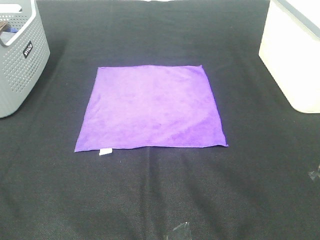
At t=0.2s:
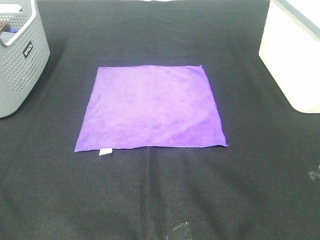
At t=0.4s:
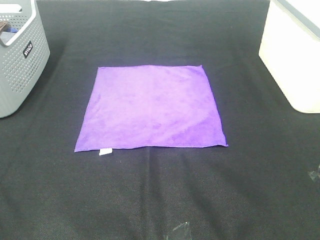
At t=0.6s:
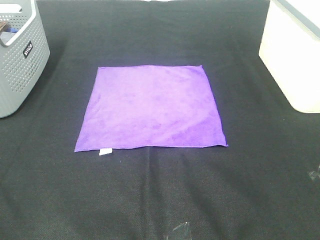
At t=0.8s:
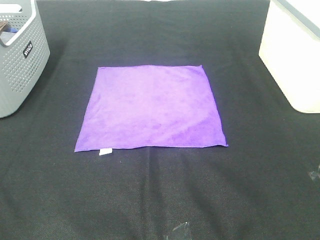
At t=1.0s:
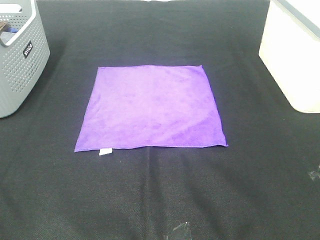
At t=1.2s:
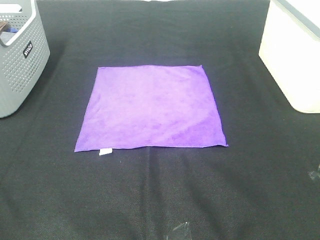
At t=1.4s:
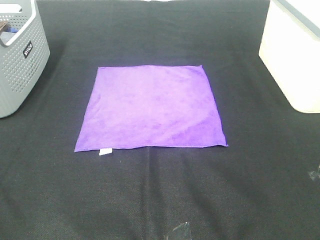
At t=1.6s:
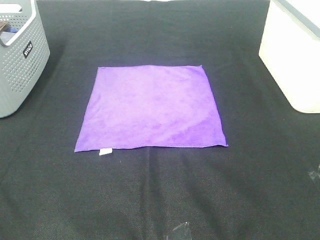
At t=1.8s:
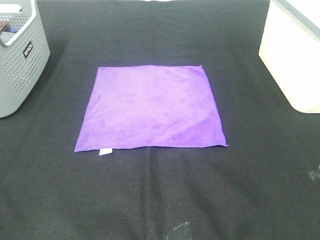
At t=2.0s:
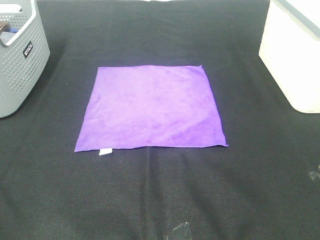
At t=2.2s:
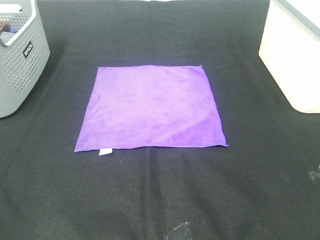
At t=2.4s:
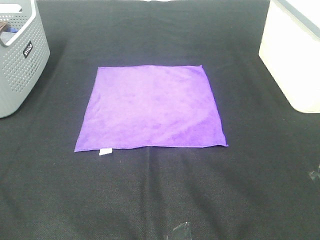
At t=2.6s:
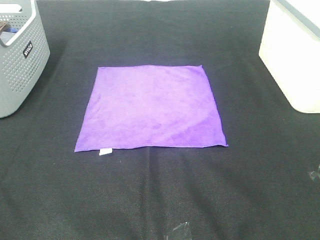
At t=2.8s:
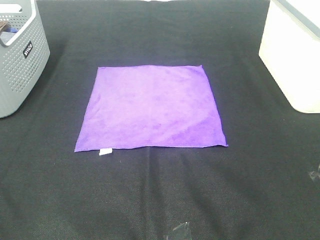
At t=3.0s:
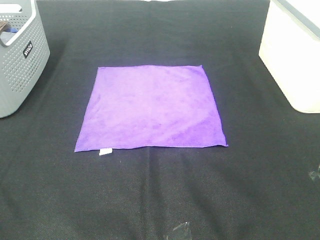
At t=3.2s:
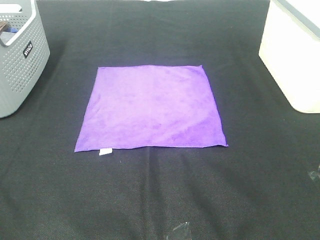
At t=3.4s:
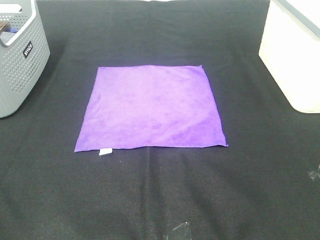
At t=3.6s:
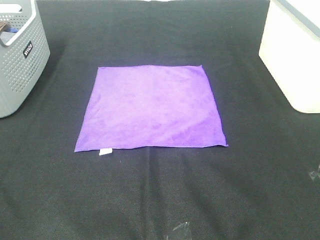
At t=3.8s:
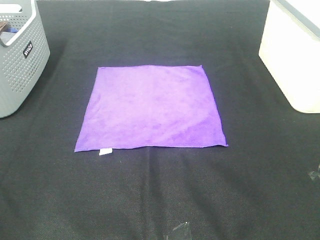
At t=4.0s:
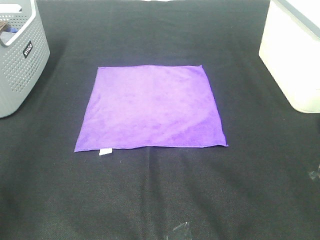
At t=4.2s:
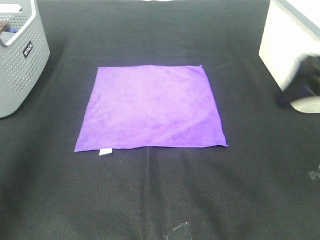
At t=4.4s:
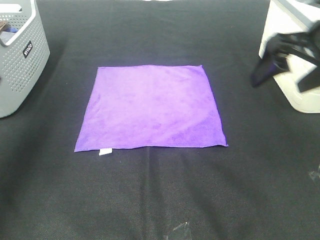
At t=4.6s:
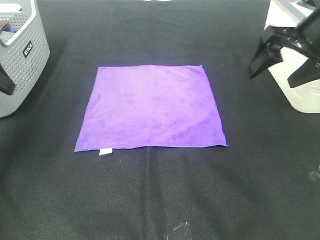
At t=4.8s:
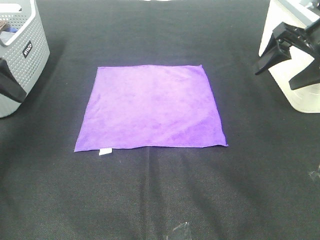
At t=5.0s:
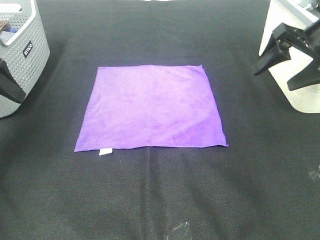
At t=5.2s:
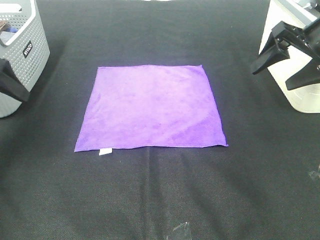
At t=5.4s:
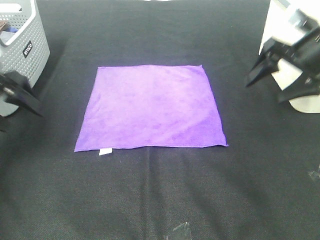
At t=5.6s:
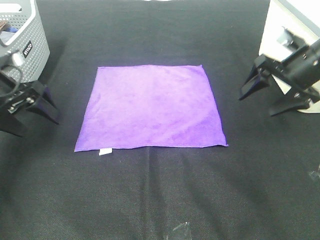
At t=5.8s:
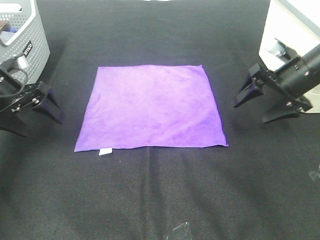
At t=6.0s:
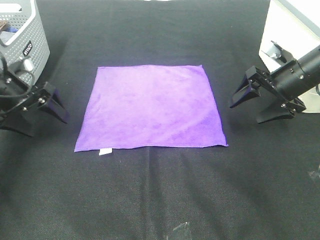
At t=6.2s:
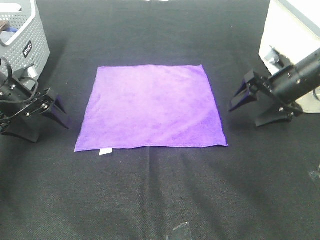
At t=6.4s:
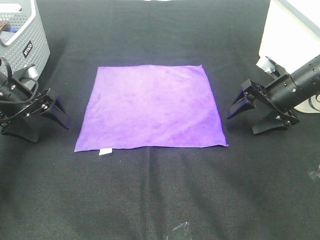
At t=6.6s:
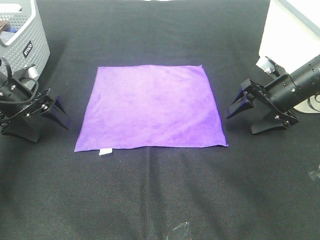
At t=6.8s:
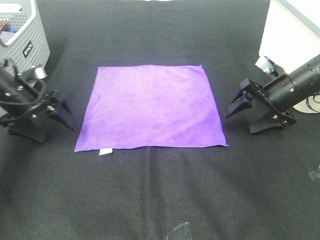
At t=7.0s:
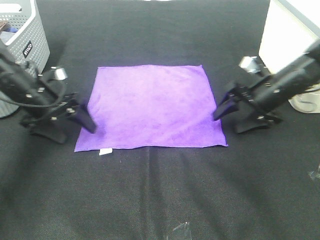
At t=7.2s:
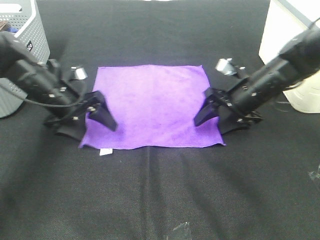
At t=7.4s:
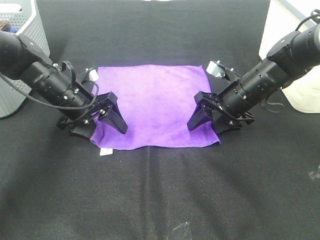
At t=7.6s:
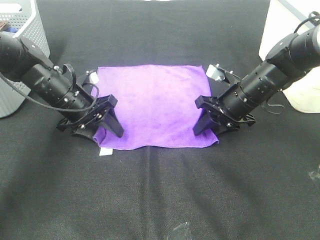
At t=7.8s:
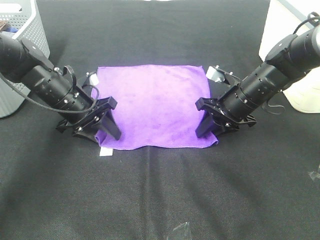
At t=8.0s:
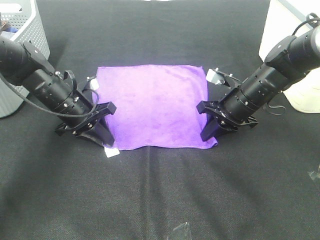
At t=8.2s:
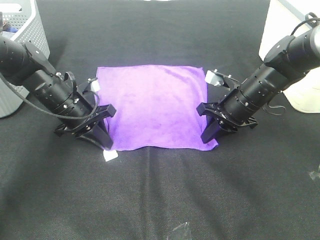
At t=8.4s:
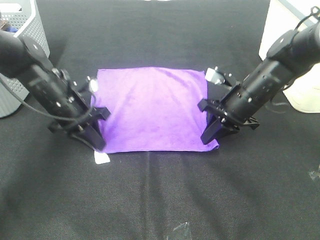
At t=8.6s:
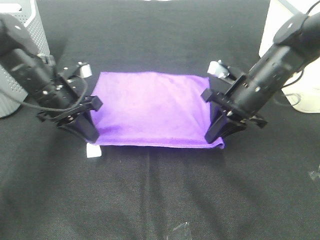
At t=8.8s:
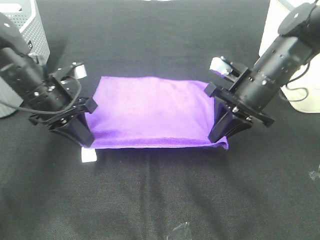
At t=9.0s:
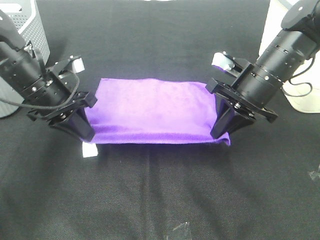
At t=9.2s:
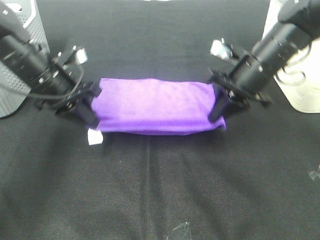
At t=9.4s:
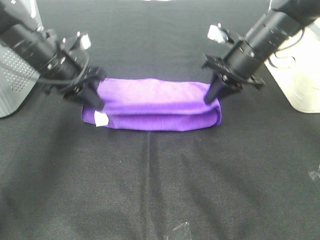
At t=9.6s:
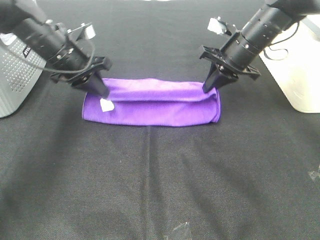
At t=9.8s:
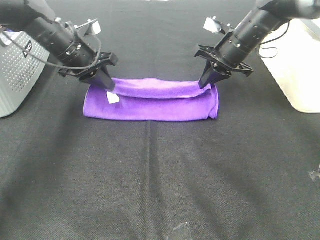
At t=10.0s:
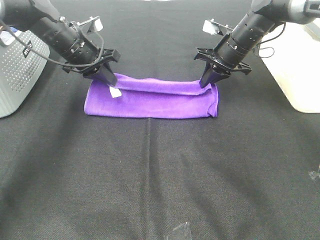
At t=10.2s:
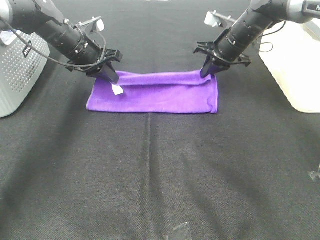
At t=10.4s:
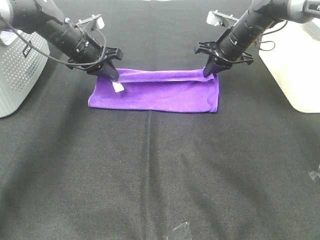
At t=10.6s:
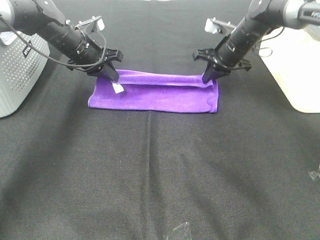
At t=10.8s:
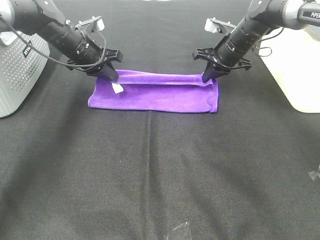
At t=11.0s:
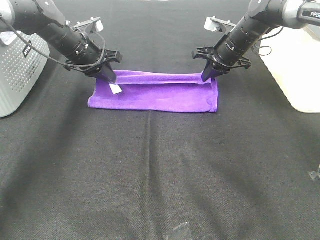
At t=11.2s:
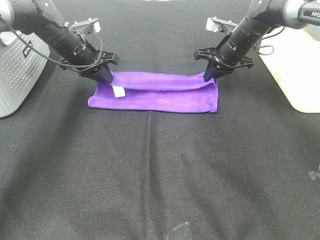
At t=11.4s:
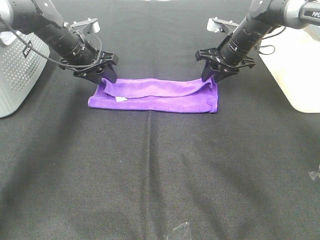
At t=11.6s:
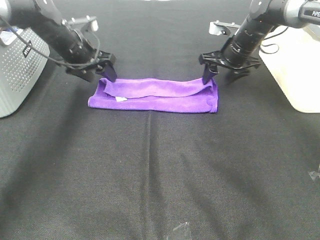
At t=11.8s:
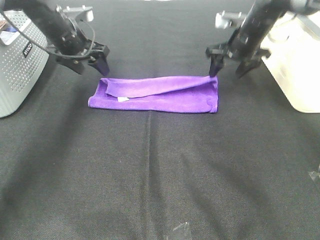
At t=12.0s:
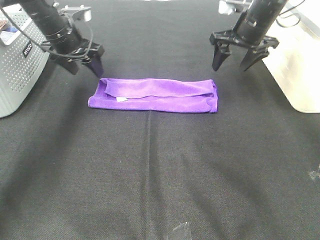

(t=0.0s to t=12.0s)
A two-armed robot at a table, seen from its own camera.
Task of the whole recording: Fold towels.
Step, t=0.0s - t=8.0s: Left hand: grab the bottom left corner of purple towel.
Step, t=0.0s - t=8.0s: Right hand: grab the bottom right corner of purple towel.
Step, t=8.2s - t=11.2s: Left hand: fold the purple towel up.
Step, t=8.2s - t=11.2s: Right hand: fold the purple towel up.
t=0.0s - t=3.0s: Neither gripper changes place.
t=3.0s - t=4.4s: The two grippers go approximately 30 cm forward.
t=4.4s - t=6.0s: The grippers both shift downward and forward by roughly 20 cm.
t=6.0s - t=7.6s: The left gripper shifts some 10 cm to the right, and closes. Meanwhile the right gripper goes some 10 cm to the left, and closes its fingers.
t=7.6s - t=9.0s: The two grippers go some 5 cm upward. The right gripper closes its fingers; the left gripper closes its fingers.
t=9.0s - t=10.4s: The two grippers go approximately 15 cm forward.
t=10.4s - t=12.0s: The right gripper shifts about 5 cm upward, and opens its fingers. Meanwhile the left gripper opens up.

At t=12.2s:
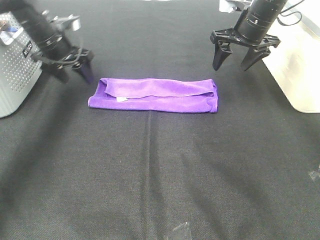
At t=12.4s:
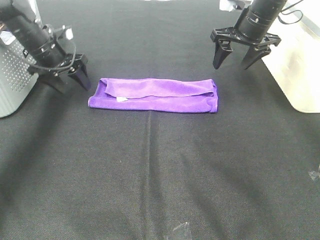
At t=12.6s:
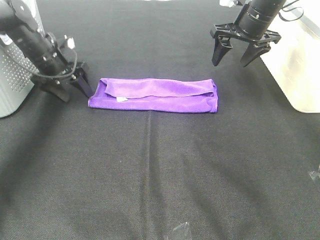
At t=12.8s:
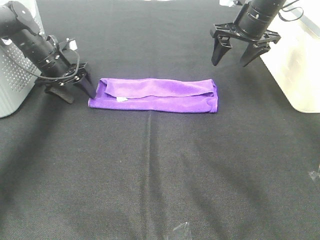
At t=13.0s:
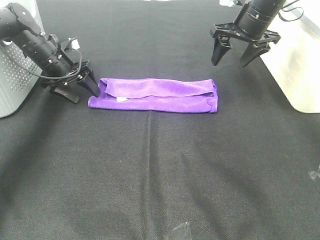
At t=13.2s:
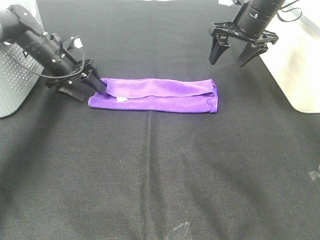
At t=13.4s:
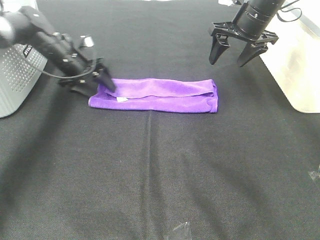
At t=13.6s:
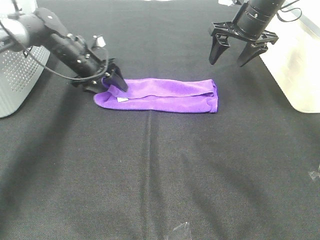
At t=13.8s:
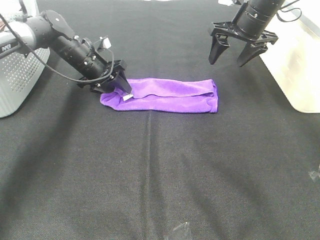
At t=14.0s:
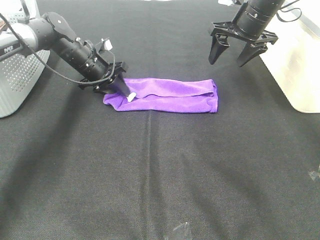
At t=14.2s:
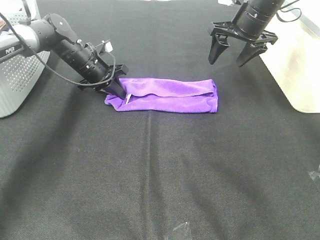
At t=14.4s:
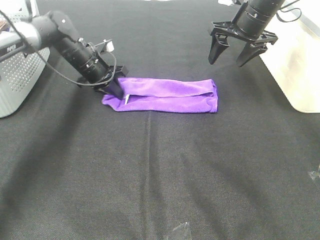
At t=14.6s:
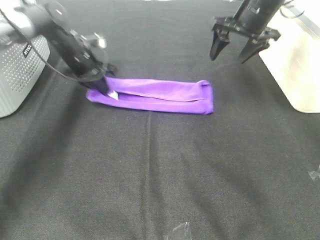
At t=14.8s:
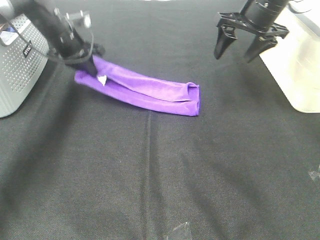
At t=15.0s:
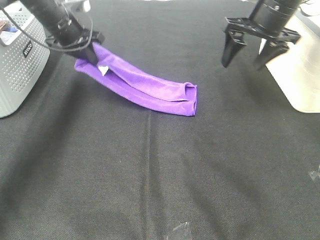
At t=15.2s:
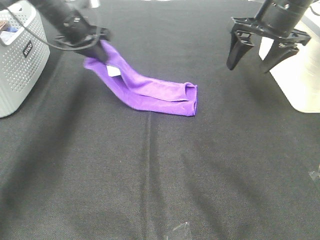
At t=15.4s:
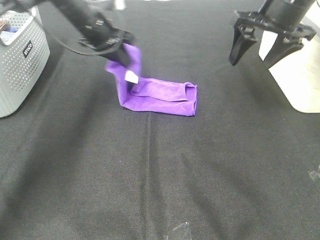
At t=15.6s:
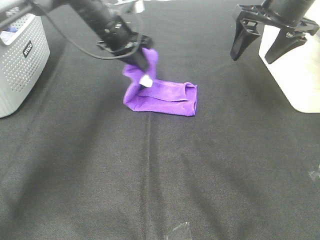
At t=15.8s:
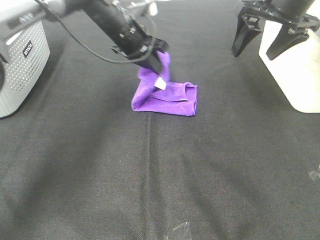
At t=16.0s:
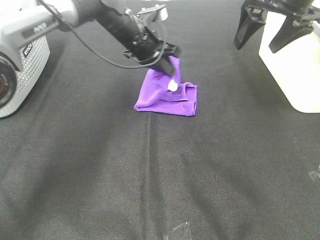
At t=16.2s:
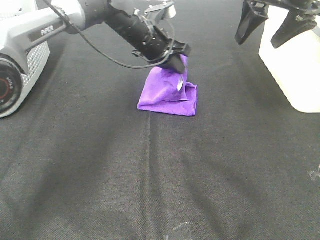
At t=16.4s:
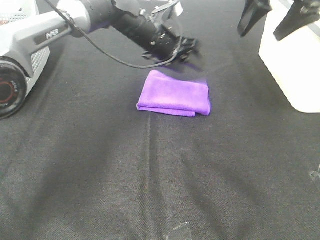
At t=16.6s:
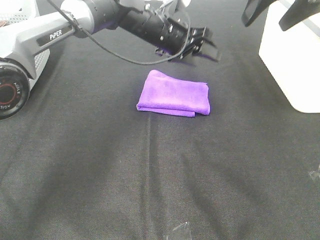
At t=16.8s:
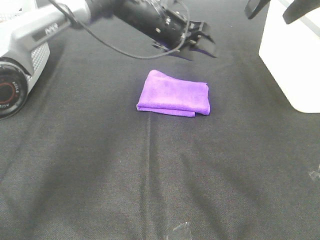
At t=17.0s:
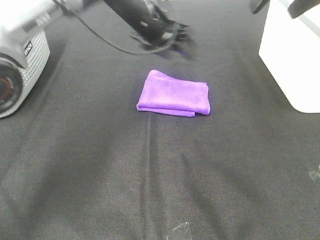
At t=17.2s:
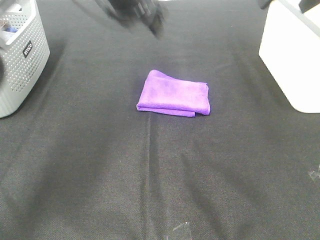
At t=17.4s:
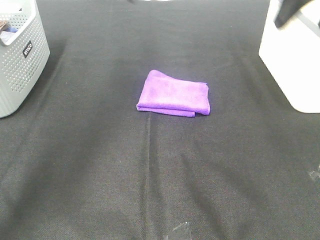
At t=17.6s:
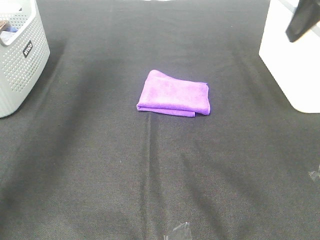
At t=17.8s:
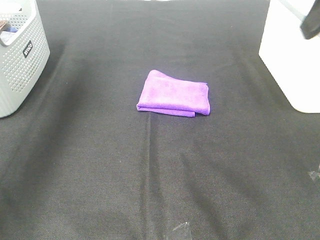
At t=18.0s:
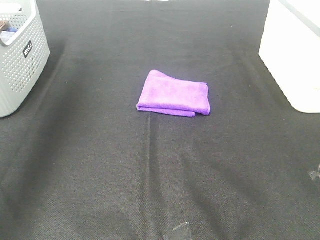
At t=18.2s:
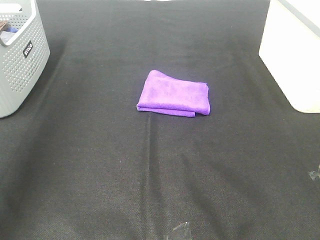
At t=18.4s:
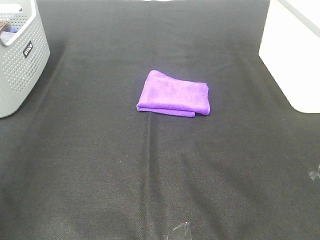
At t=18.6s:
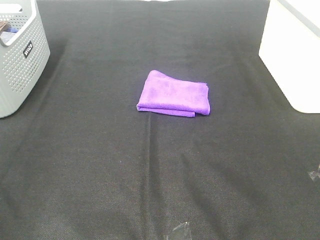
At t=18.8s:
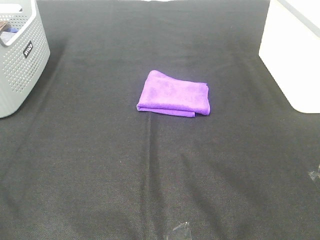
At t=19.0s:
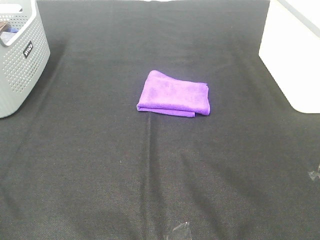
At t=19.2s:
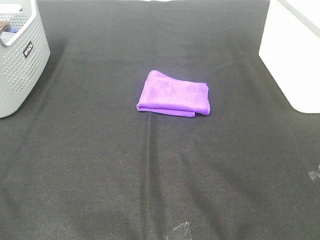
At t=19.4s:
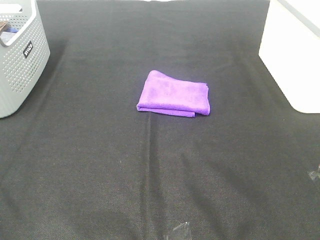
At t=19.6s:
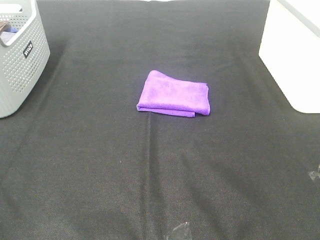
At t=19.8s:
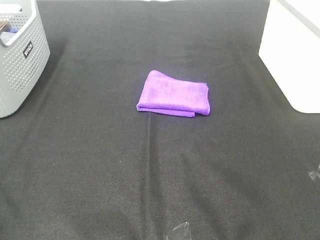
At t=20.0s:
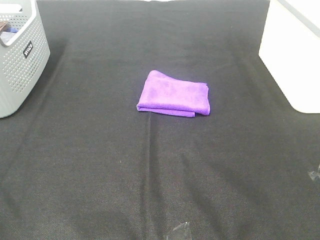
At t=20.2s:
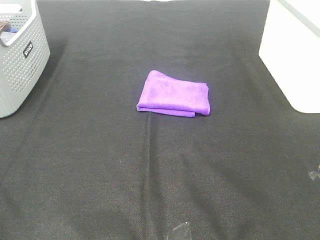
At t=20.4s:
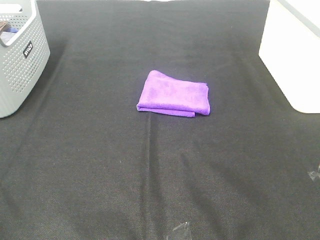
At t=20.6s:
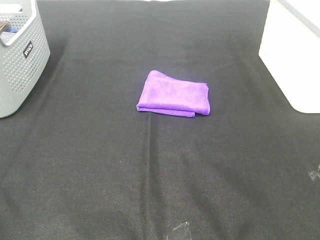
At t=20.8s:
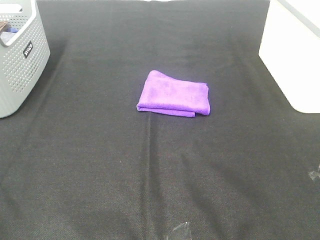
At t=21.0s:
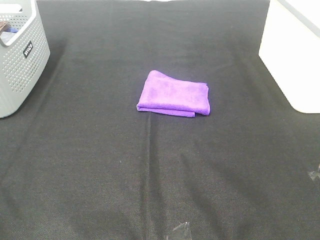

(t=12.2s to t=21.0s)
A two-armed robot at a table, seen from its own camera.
Task of the whole recording: Fold towels.
Step, t=12.2s - t=16.2s: Left hand: fold the purple towel from left to right.
t=12.2s - t=13.6s: The left gripper moves downward and to the right, some 10 cm.
t=13.6s - t=15.2s: The right gripper travels backward by roughly 10 cm, while the left gripper travels upward by roughly 10 cm, and closes.
t=15.2s - t=16.6s: The left gripper goes about 20 cm to the right, and opens; the right gripper travels upward by about 10 cm.
t=16.6s - t=18.0s: The left gripper shifts roughly 40 cm to the left, upward and backward, while the right gripper goes some 20 cm backward.
t=18.0s - t=19.6s: The left gripper heads backward and downward, covering roughly 35 cm.
